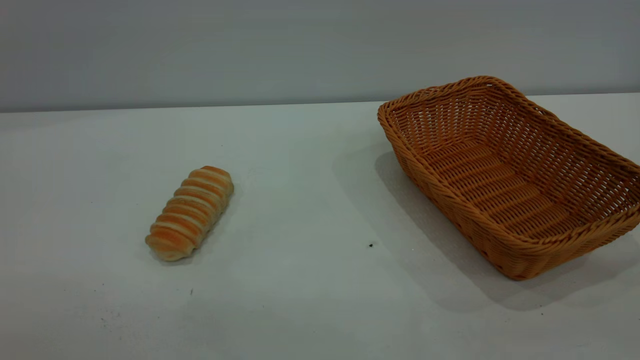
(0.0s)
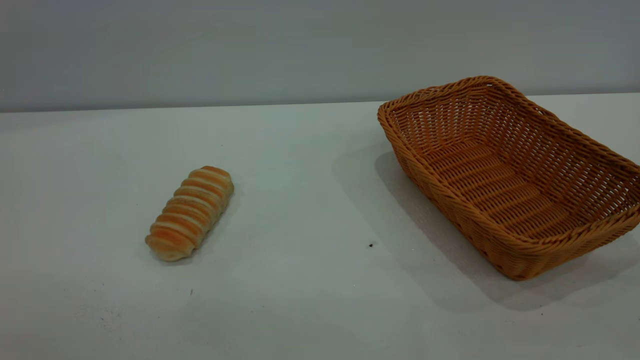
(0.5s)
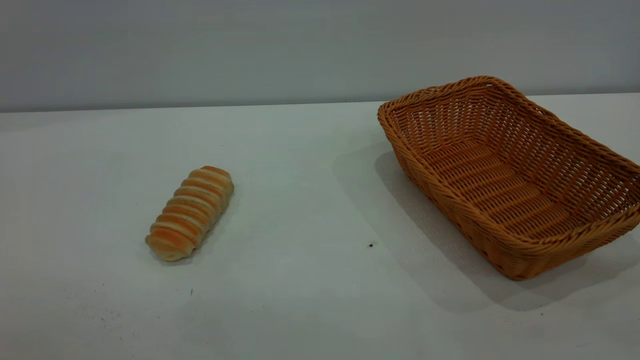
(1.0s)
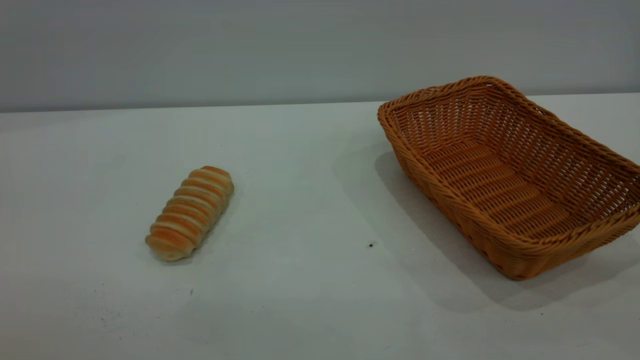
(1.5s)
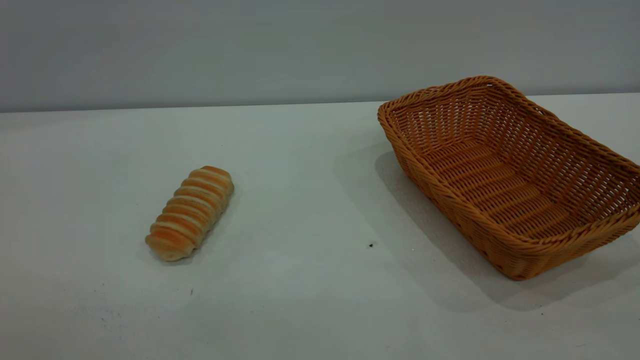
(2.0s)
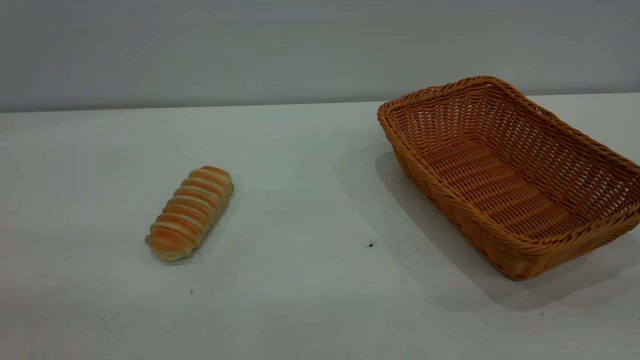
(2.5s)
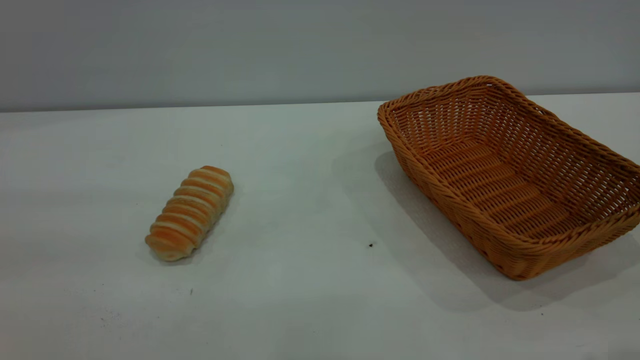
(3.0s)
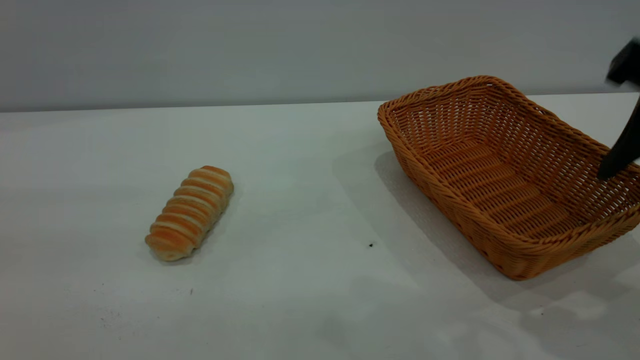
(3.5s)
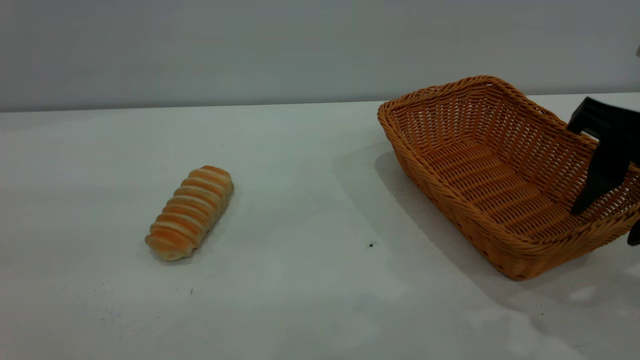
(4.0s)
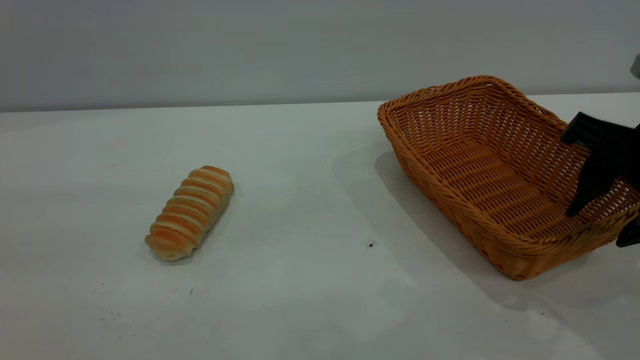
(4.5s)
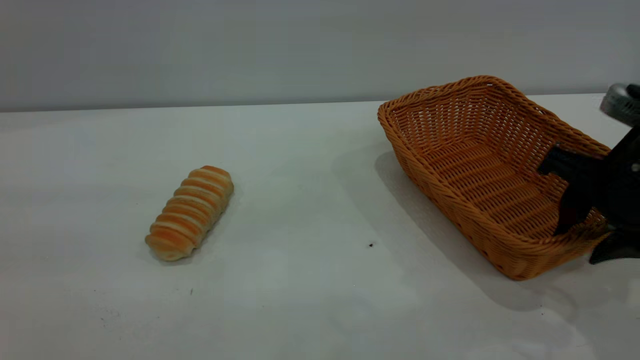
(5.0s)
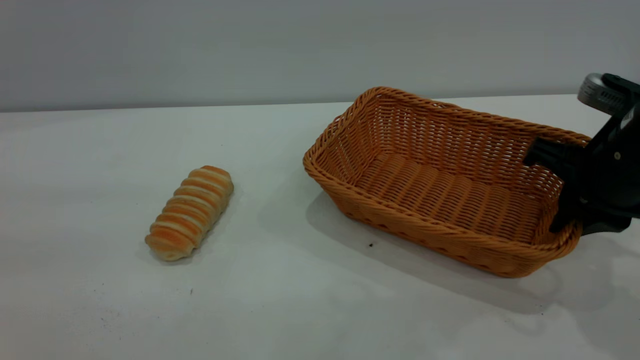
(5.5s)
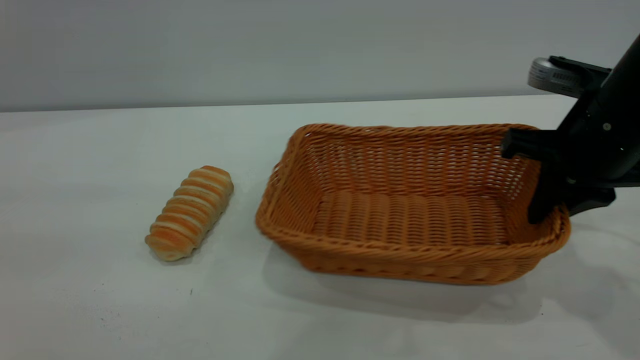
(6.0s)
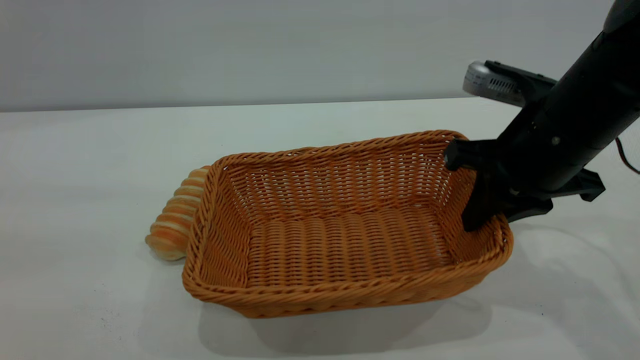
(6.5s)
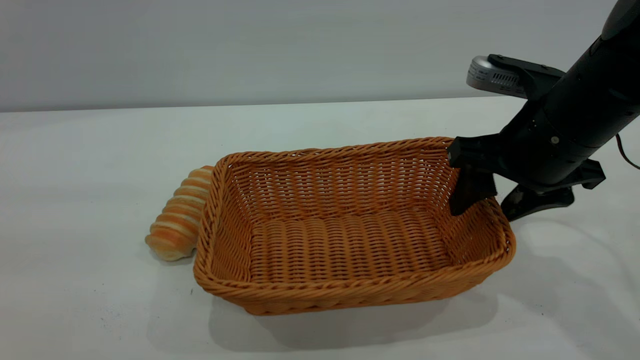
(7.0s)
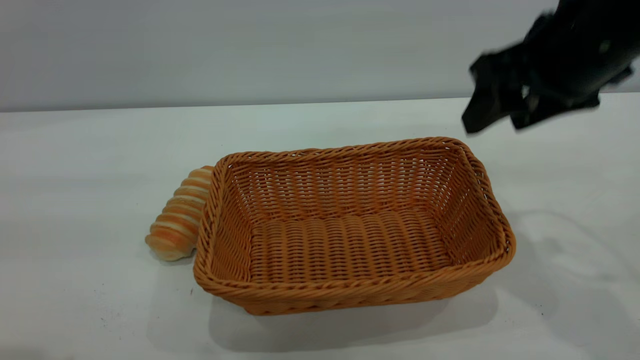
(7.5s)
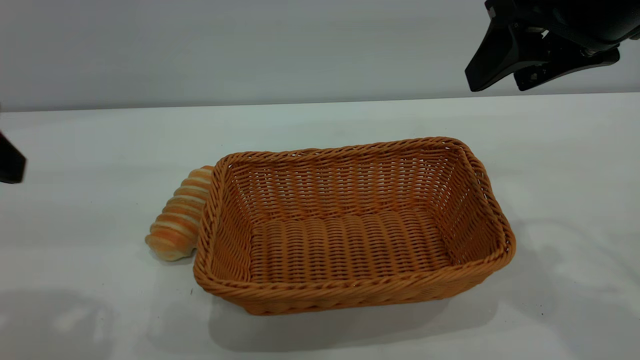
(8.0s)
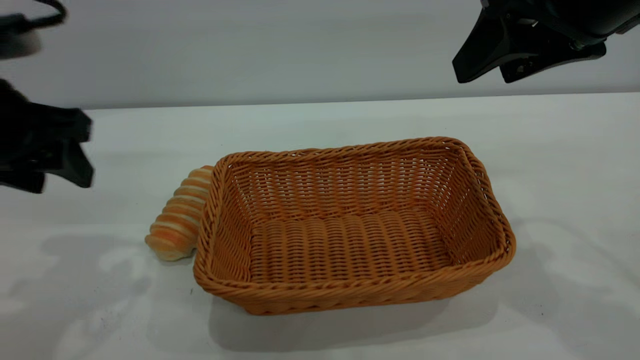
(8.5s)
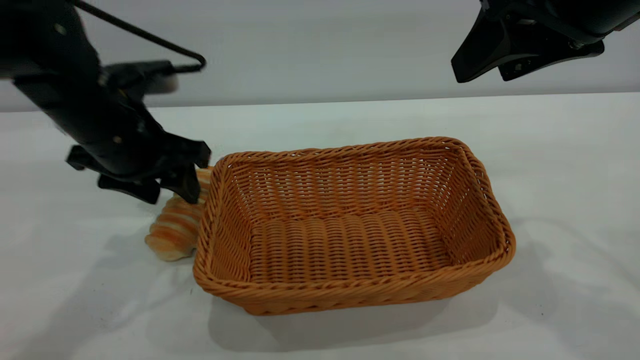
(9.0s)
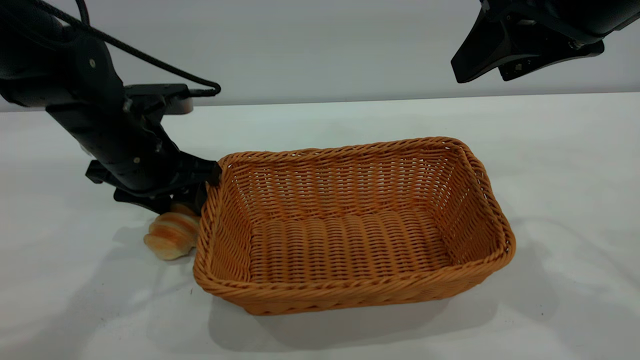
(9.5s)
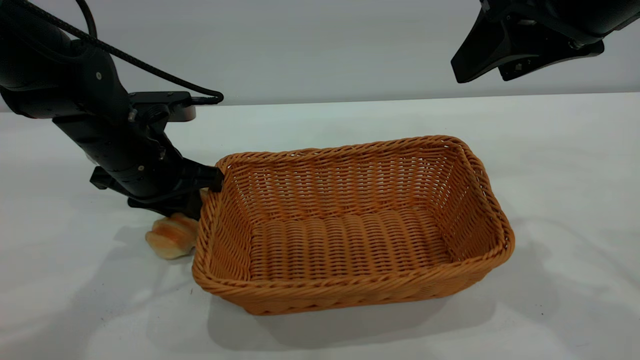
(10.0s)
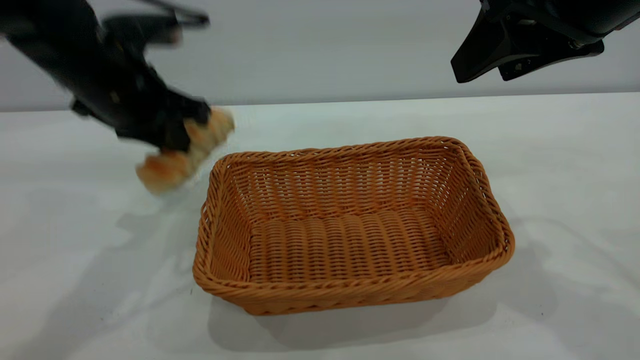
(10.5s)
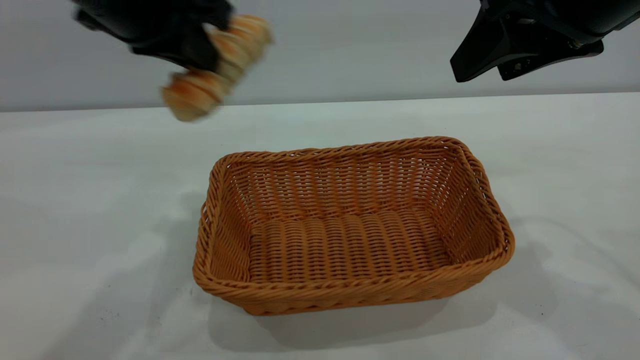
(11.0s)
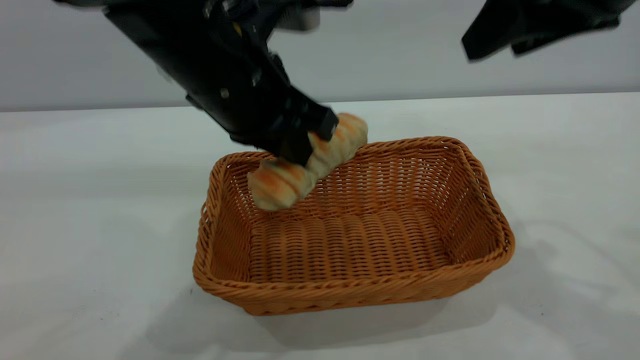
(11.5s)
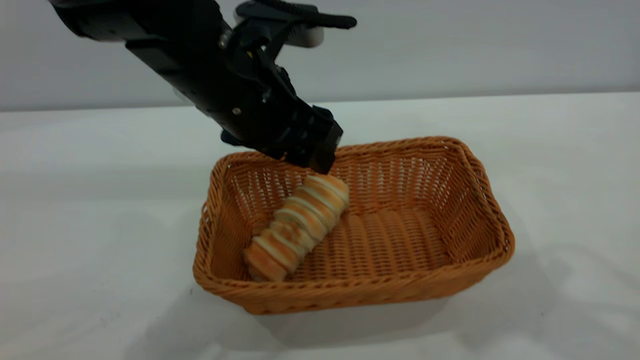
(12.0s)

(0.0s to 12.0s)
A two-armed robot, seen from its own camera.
Task of the whole recording: One hand grasps the yellow basket and places it in the middle of the table, while the other hand picks up the long bread and puts it into the yellow basket.
Step, 0.0s - 7.0s: Move the basket to the center of view.
2.0s - 4.0s: The right gripper is displaced forward and downward by some 30 cm.
4.0s - 6.0s: The right gripper shifts about 5 cm forward, and closes its fingers.
6.0s - 8.0s: The right gripper heads upward, covering approximately 10 cm, and opens its fingers. Meanwhile the left gripper is displaced forward and downward by some 15 cm.
8.0s - 10.0s: The left gripper shifts about 25 cm forward, downward and to the right, and closes.
10.0s - 12.0s: The right gripper moves upward, about 10 cm. Meanwhile the left gripper heads to the right, upward and backward, covering approximately 15 cm, and opens.

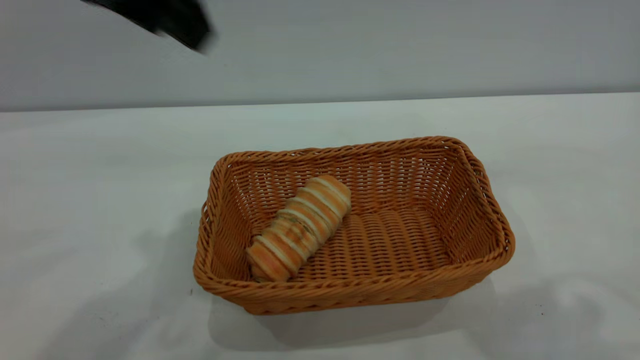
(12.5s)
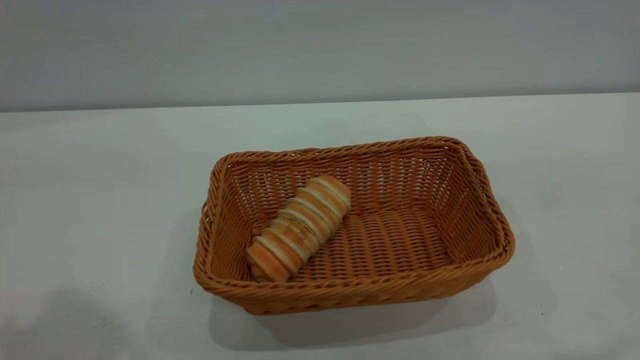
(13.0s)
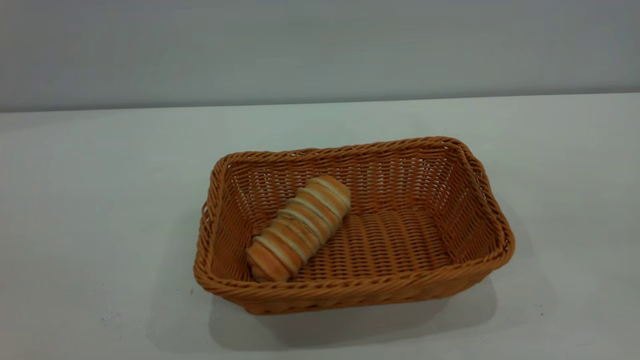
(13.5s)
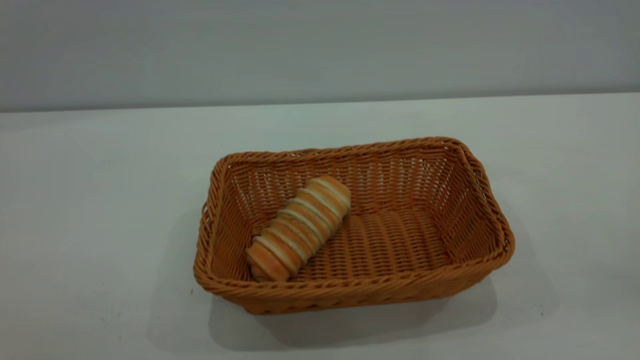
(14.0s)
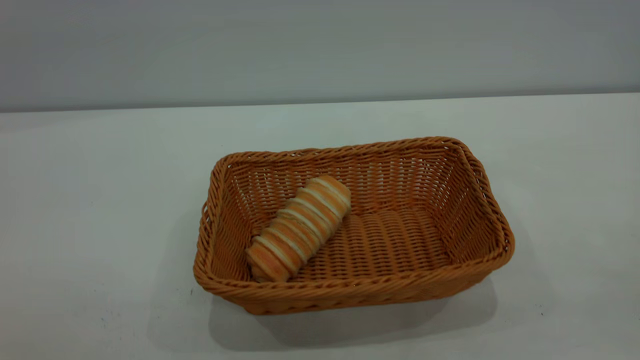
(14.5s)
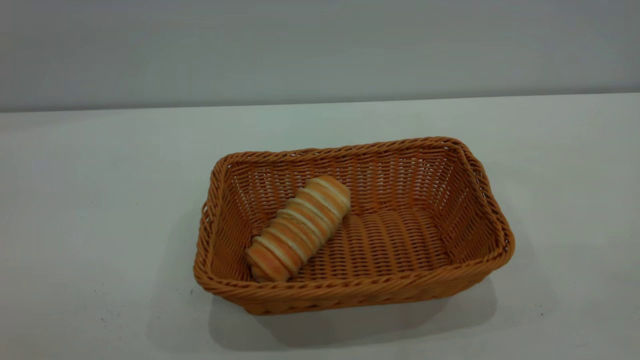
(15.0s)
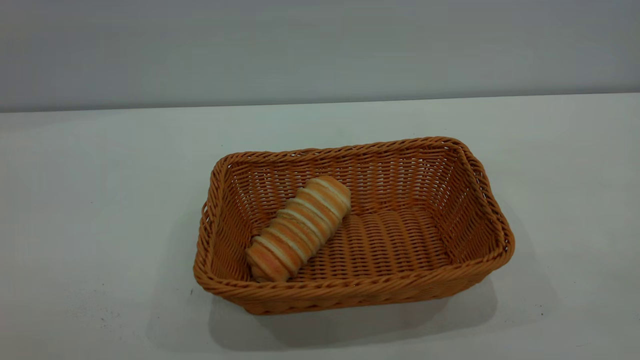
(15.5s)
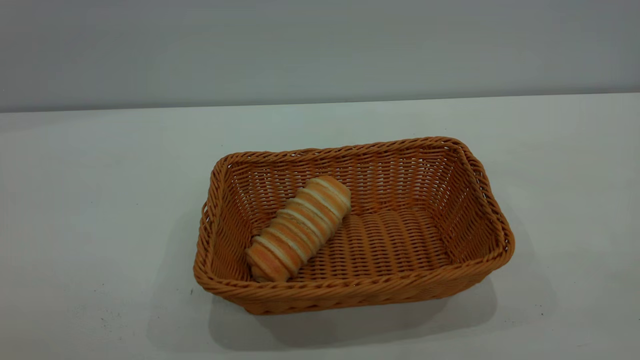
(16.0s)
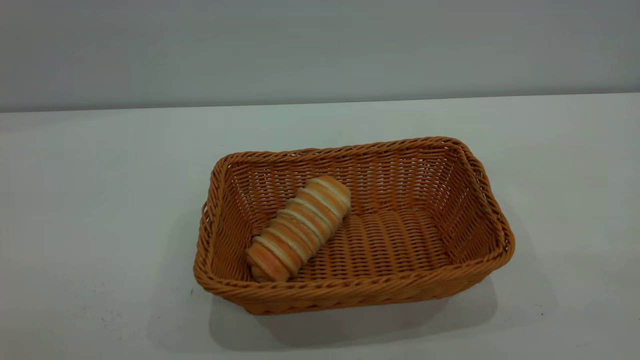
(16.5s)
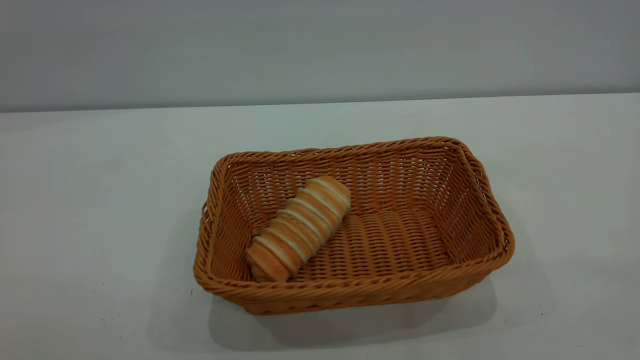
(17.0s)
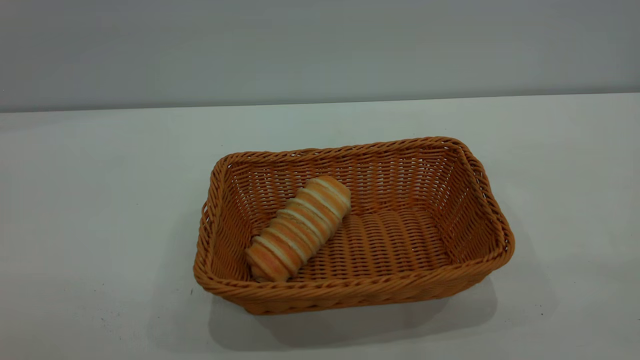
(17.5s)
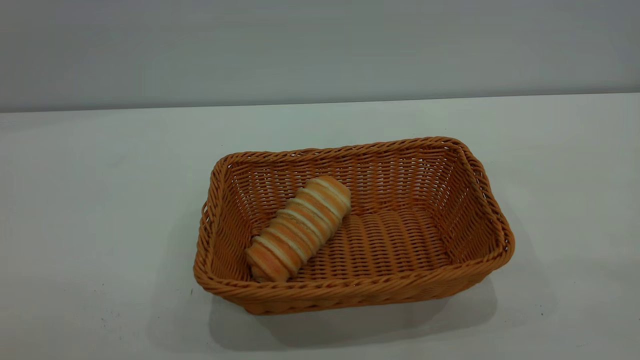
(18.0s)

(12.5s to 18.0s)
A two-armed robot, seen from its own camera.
Task of the whole recording: One hand grasps the yellow basket and places it in the middle of the table, while the other hand picks up the long bread and puts it into the yellow basket.
12.5s - 14.5s: The left gripper heads backward, covering some 30 cm.

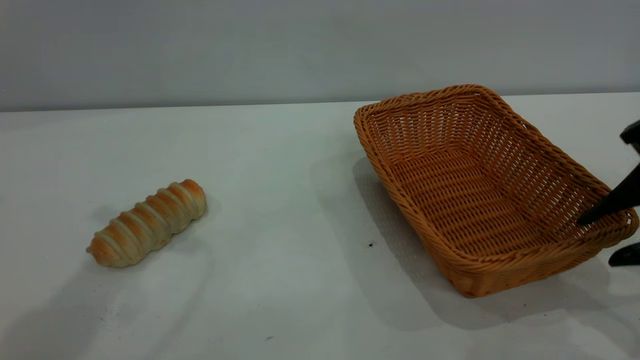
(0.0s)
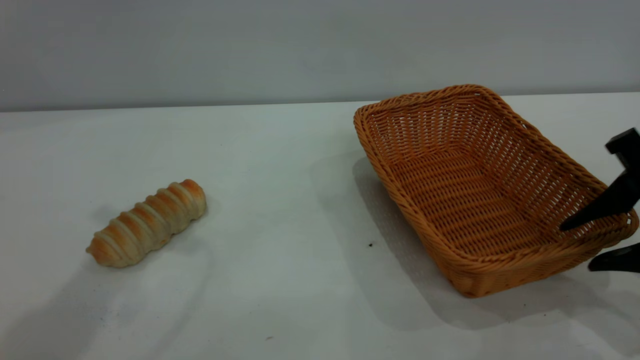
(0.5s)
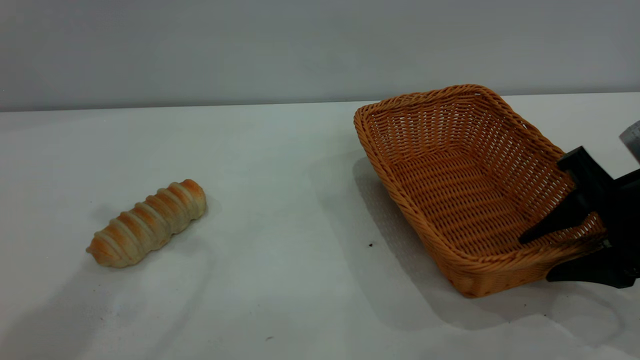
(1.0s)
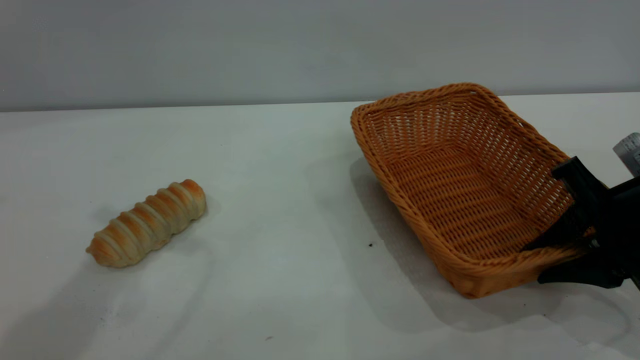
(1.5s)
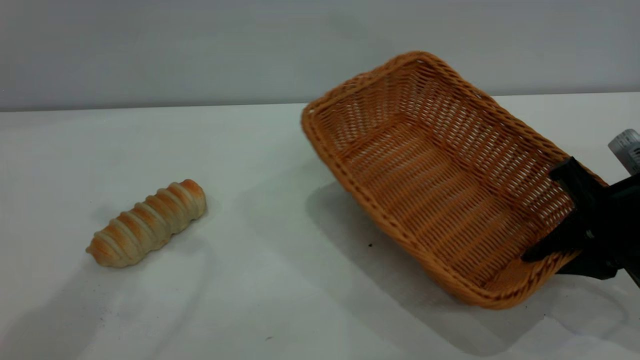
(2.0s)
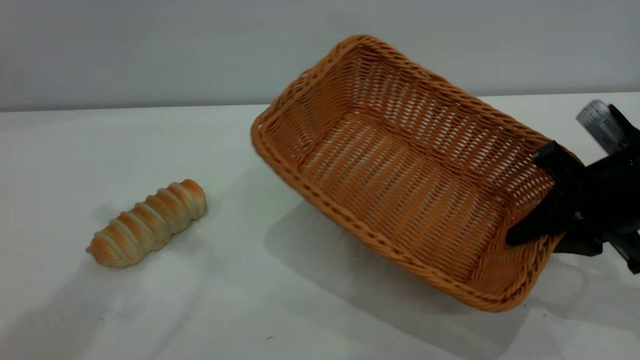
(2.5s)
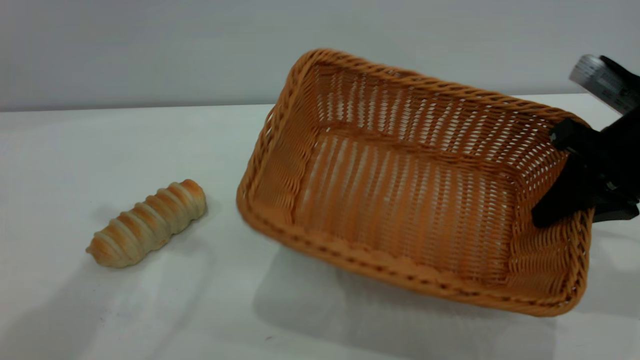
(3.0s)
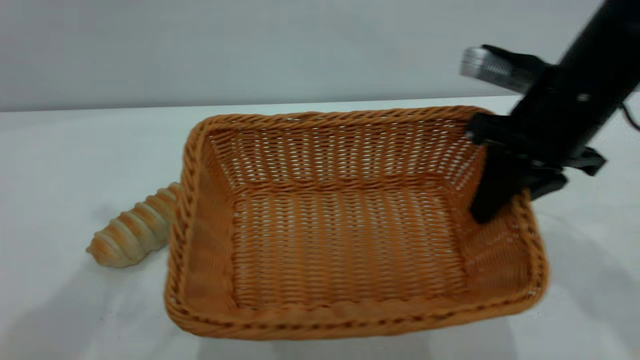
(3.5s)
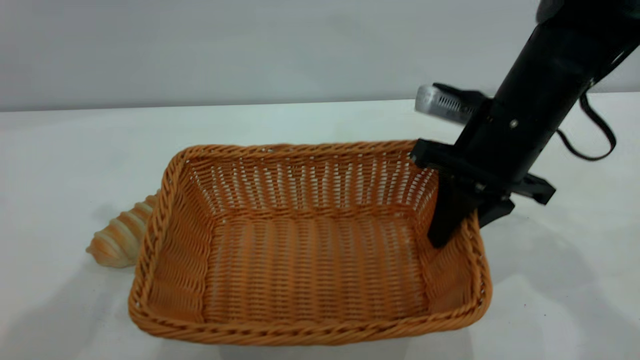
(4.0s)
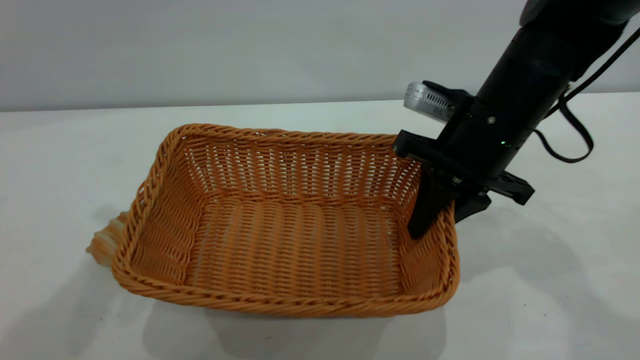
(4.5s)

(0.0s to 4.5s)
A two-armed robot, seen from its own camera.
Task of the whole recording: One hand grasps the yellow basket and places it in the middle of the table, while the other hand picks up the long bread and puts it into the yellow basket.
0.0s - 2.0s: The right gripper heads downward, covering roughly 5 cm, and closes.
2.0s - 4.5s: The right gripper is displaced to the left and forward by some 15 cm.
